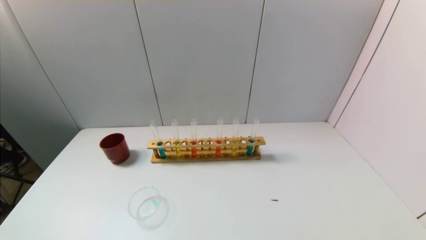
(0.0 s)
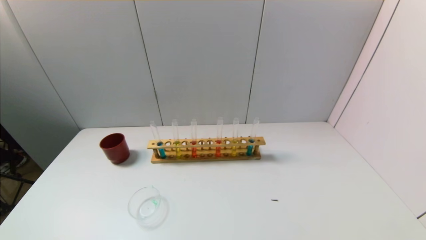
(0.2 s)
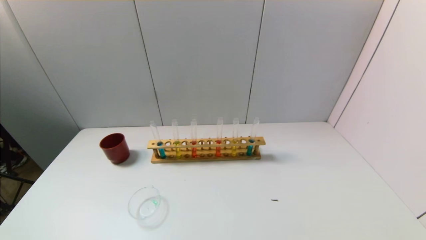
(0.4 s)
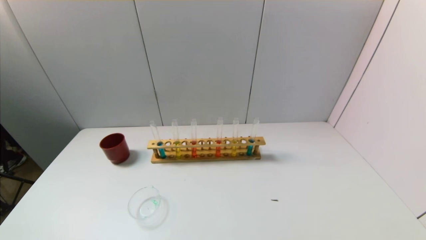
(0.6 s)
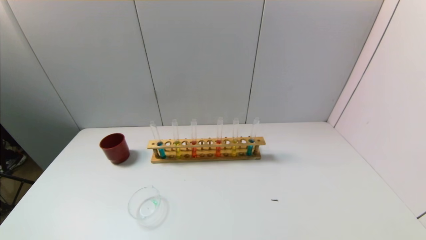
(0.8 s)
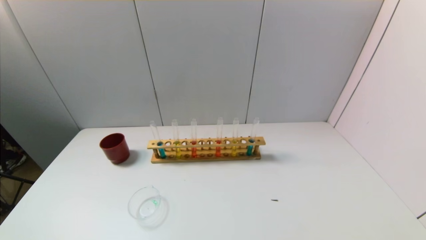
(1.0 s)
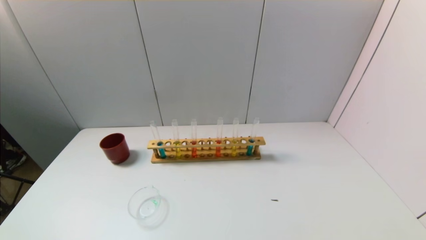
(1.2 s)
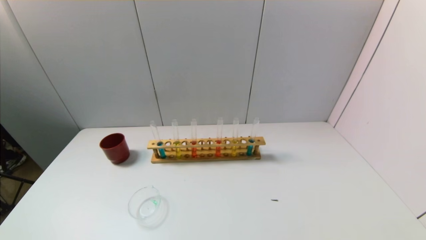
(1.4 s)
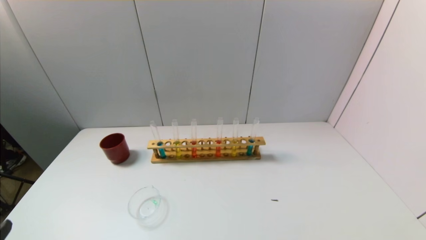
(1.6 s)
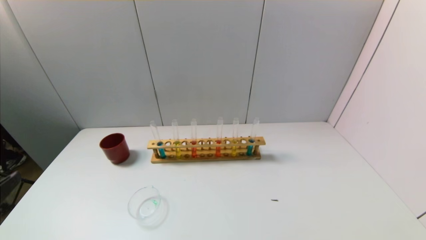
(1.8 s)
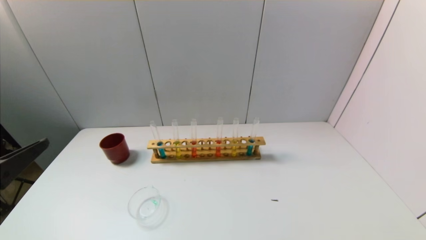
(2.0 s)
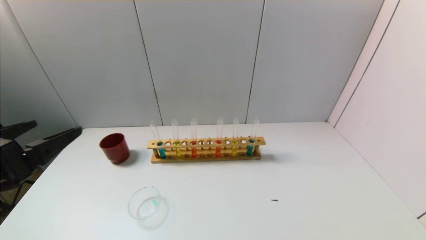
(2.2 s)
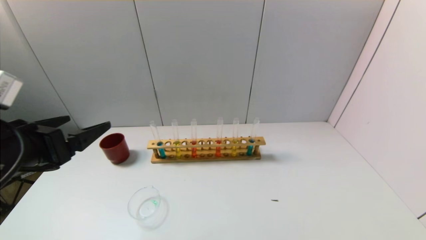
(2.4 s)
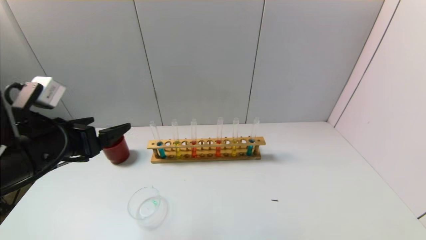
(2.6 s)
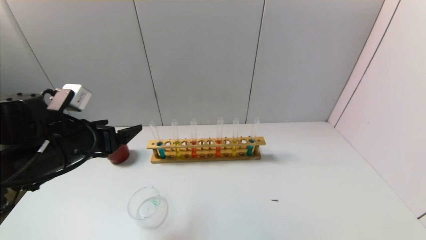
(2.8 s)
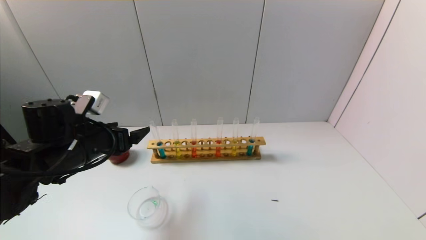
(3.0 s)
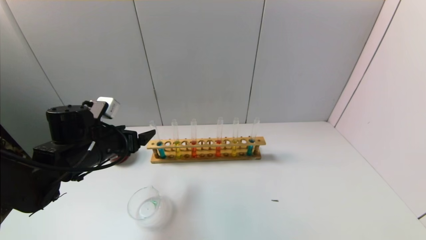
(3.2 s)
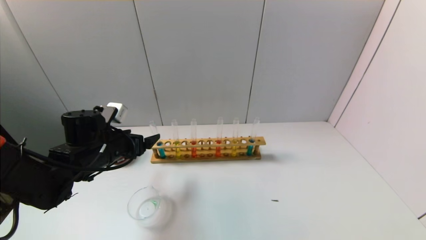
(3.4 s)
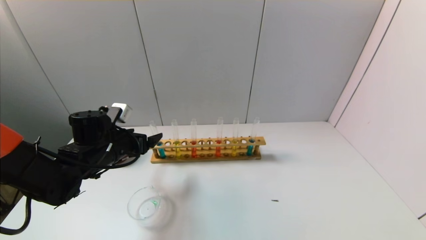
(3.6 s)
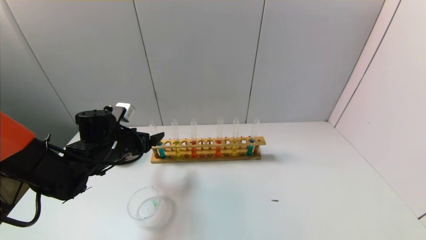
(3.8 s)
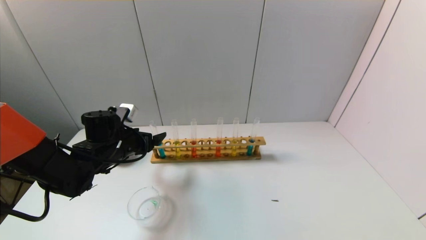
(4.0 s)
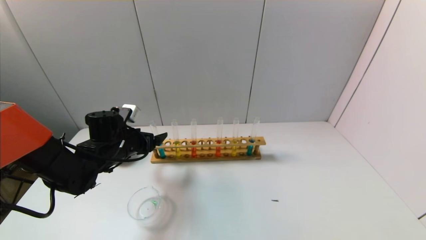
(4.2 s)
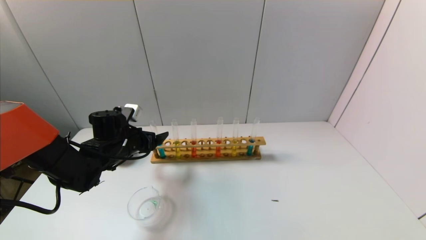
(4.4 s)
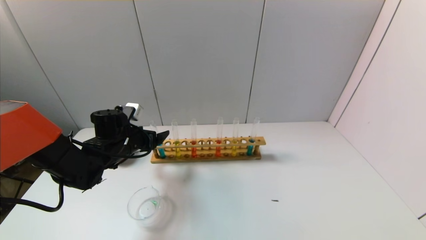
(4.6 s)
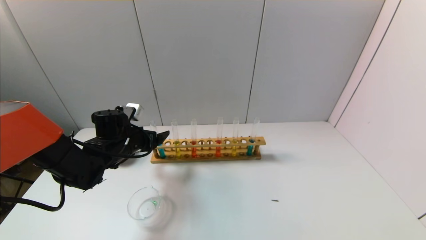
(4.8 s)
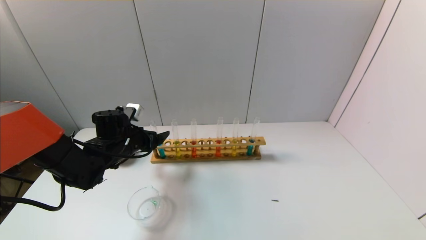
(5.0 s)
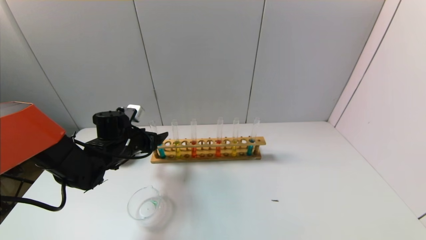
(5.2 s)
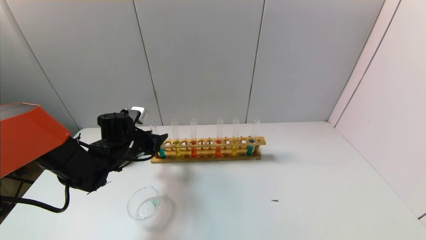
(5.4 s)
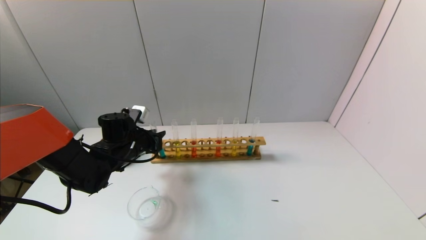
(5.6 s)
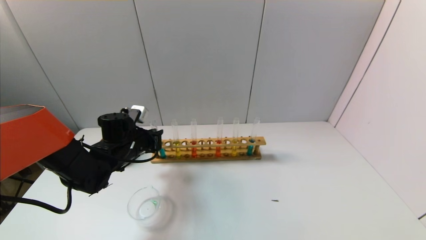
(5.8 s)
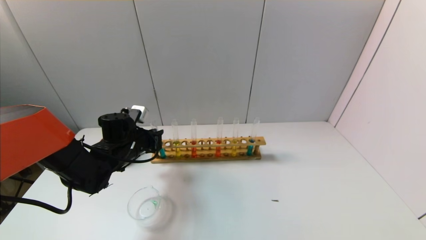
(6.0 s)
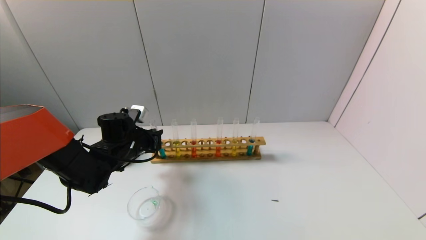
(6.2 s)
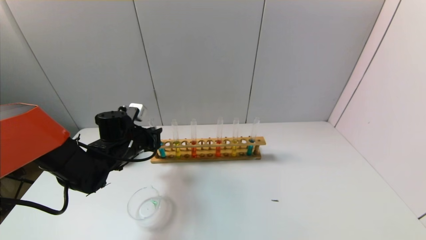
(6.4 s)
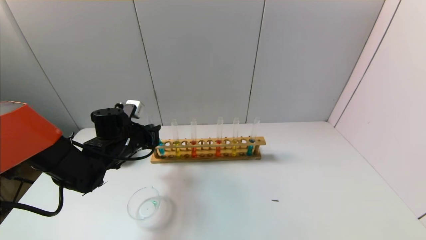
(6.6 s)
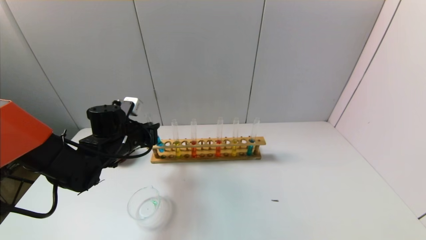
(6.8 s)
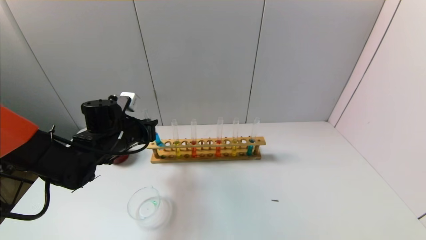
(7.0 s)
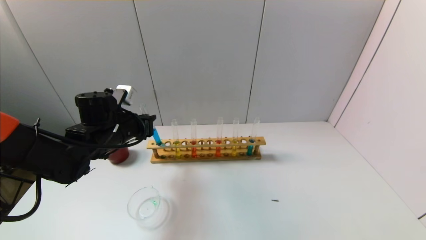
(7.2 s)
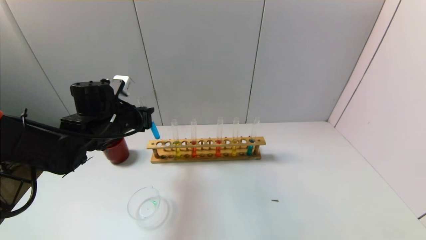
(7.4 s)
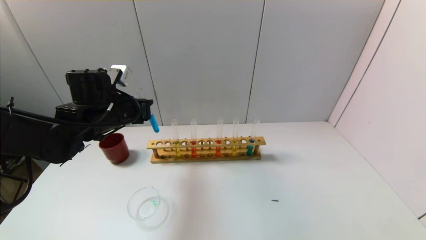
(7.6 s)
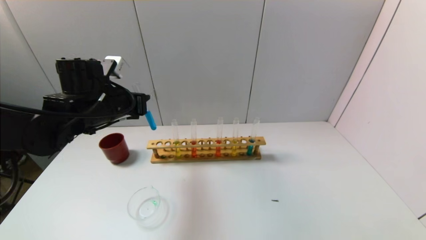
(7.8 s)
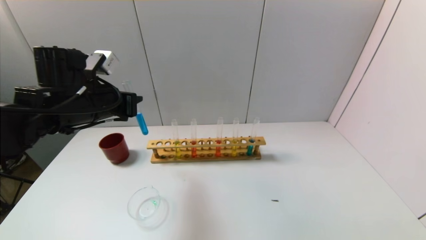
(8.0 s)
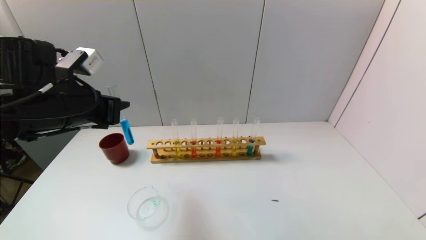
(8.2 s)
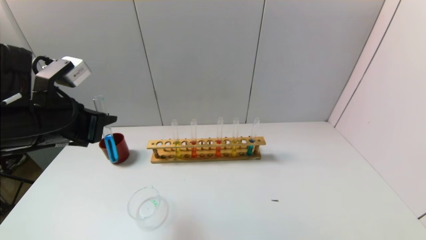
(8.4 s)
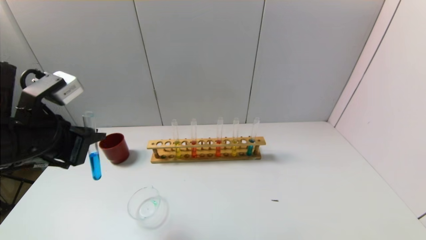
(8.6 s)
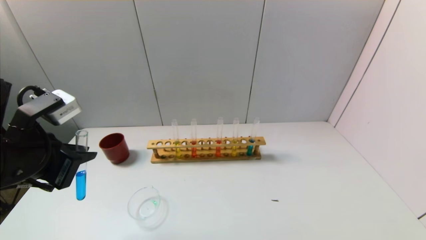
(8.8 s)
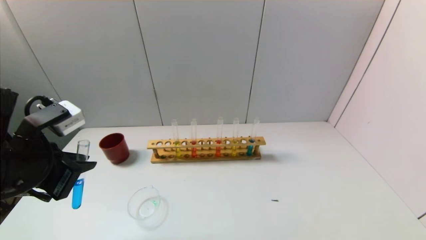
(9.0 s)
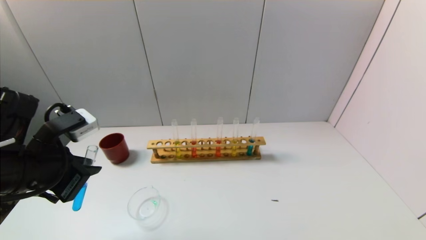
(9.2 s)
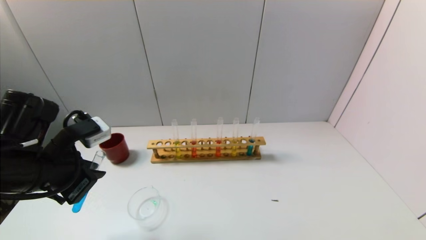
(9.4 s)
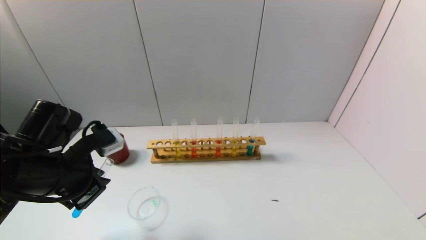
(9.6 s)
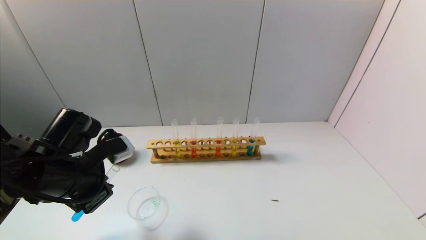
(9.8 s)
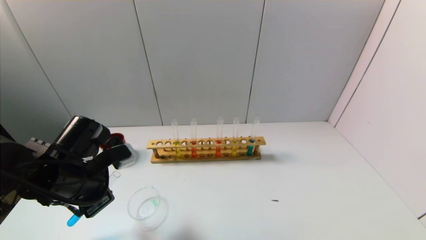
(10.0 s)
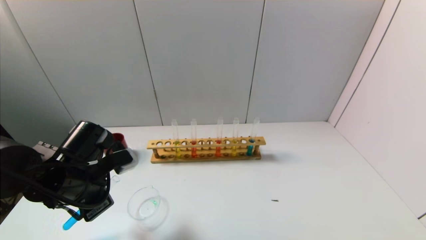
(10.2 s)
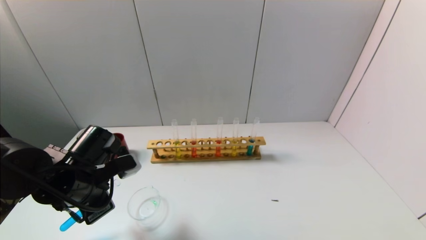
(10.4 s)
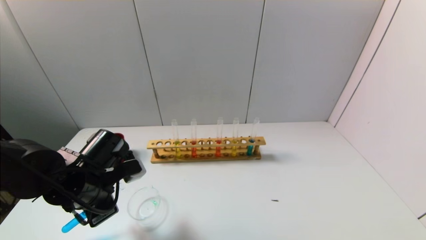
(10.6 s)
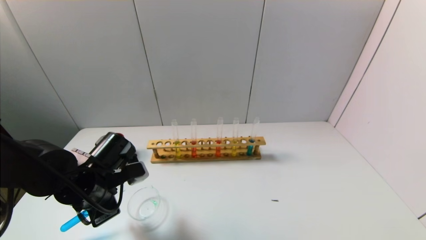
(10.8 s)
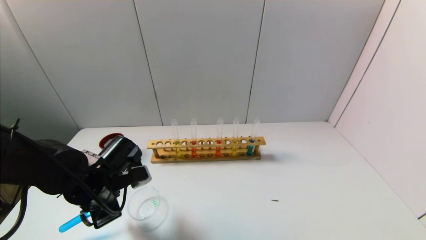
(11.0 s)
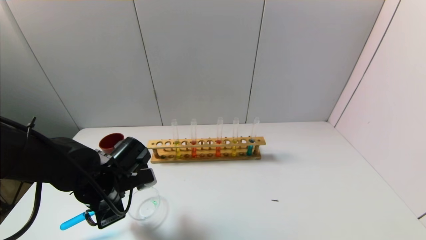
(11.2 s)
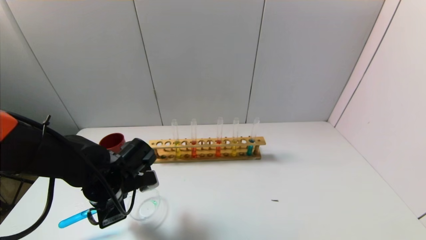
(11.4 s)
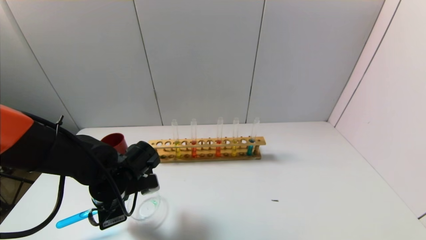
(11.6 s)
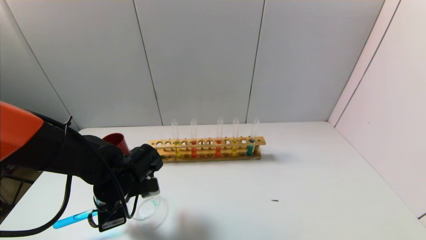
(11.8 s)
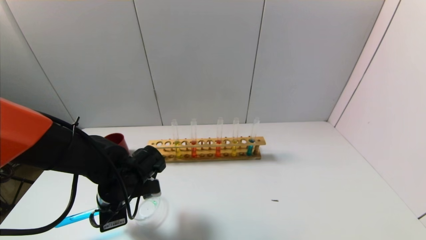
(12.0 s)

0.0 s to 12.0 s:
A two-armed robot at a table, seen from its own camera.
Task of the whole recording: pick up the test tube with yellow pigment and the test tube with blue pigment by grippers and pour them into the beaker.
Step, 0.0 to 5.6 s: Grasp the blue reagent with the left gripper.
1.6 to 3.0 s: The left gripper moves forward, about 25 cm.
3.0 to 4.4 s: The left gripper shifts approximately 10 cm forward and downward.
4.4 to 6.0 s: The left gripper closes up.
6.0 to 7.6 s: The left gripper moves upward, approximately 10 cm.
7.6 to 9.0 s: The left gripper goes roughly 15 cm backward.
9.0 to 10.4 s: The left gripper goes roughly 10 cm downward and forward.
10.4 to 12.0 s: The left gripper moves roughly 5 cm.

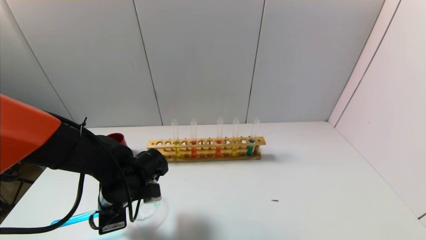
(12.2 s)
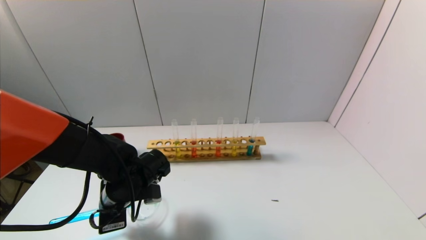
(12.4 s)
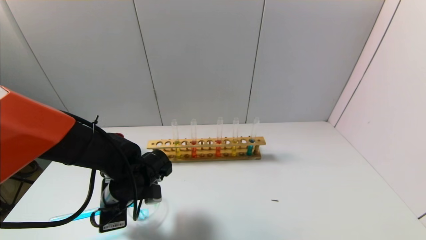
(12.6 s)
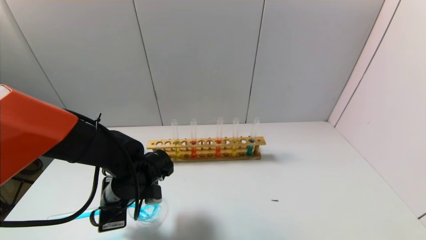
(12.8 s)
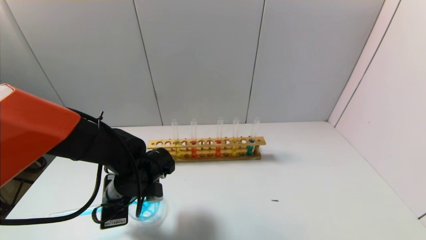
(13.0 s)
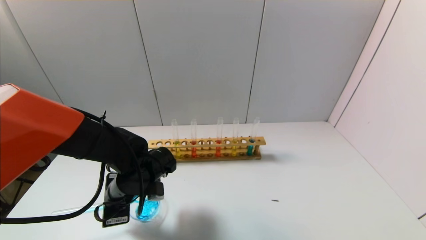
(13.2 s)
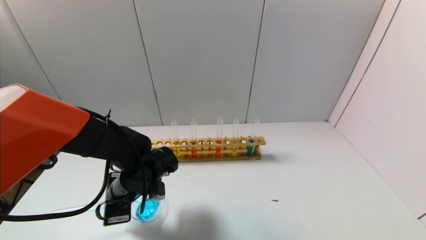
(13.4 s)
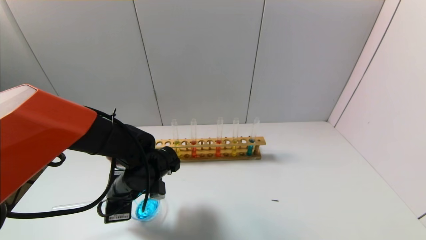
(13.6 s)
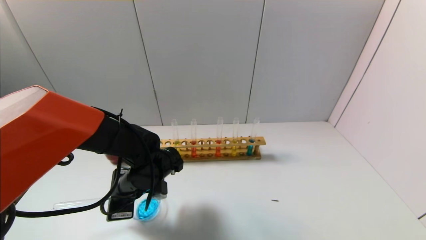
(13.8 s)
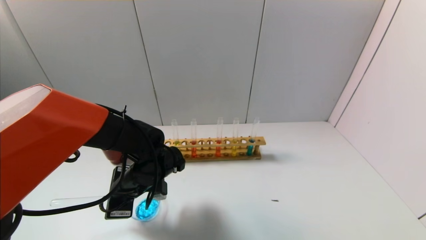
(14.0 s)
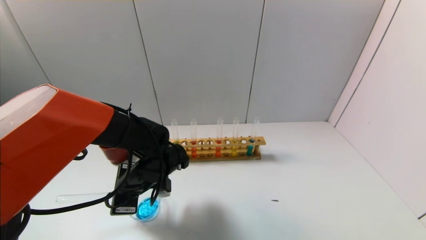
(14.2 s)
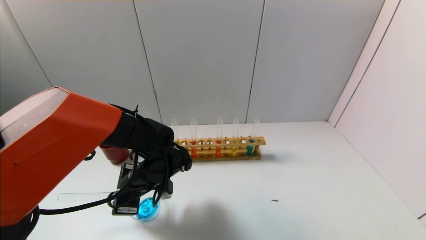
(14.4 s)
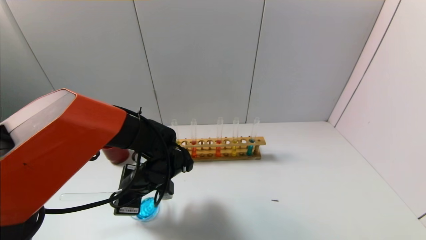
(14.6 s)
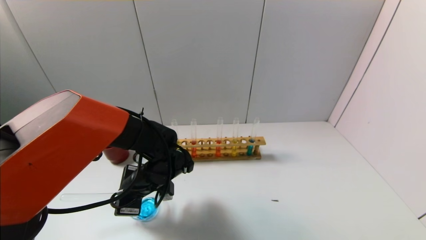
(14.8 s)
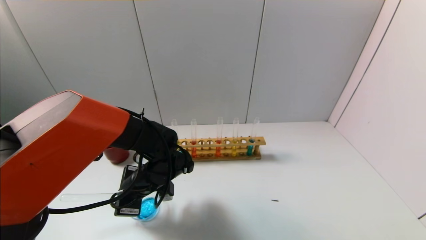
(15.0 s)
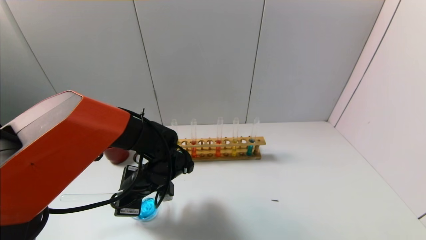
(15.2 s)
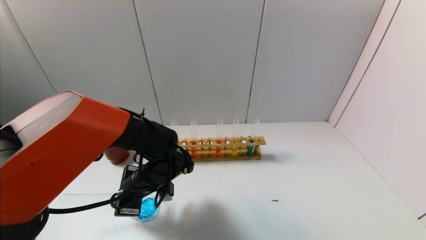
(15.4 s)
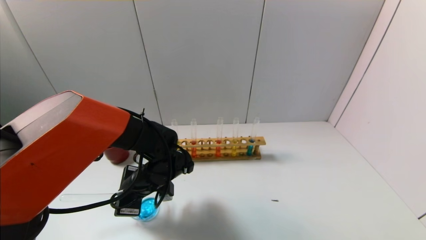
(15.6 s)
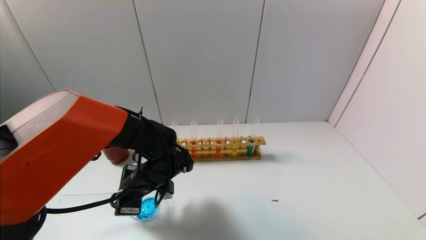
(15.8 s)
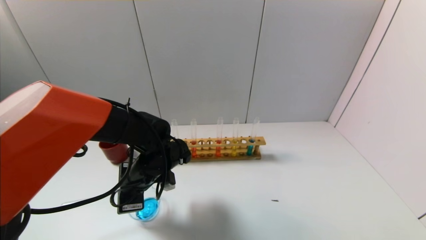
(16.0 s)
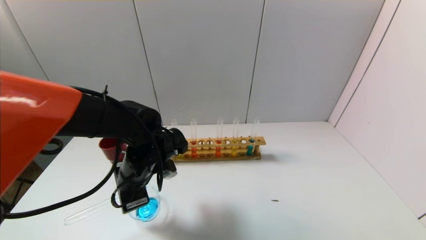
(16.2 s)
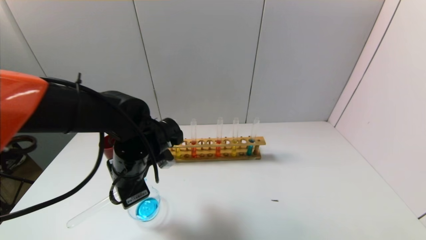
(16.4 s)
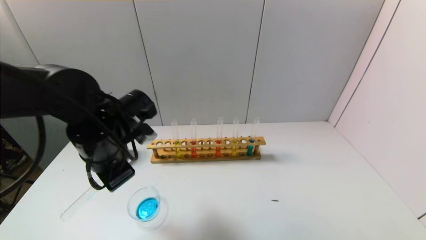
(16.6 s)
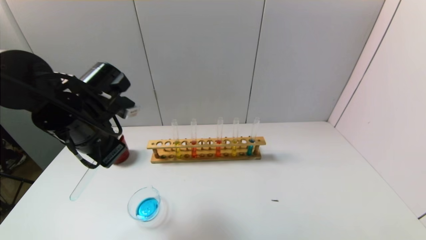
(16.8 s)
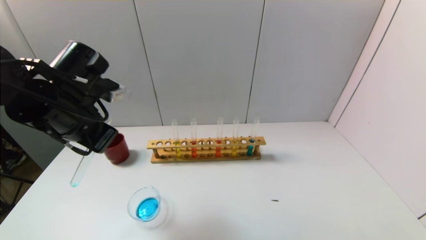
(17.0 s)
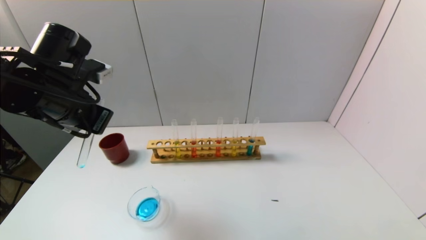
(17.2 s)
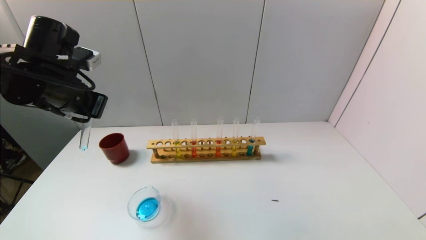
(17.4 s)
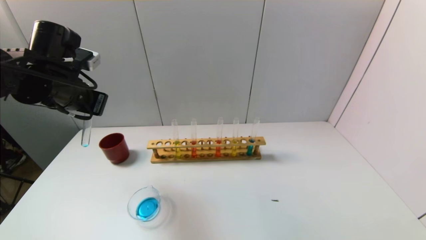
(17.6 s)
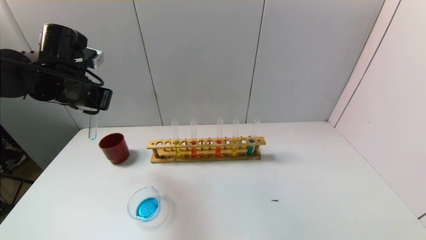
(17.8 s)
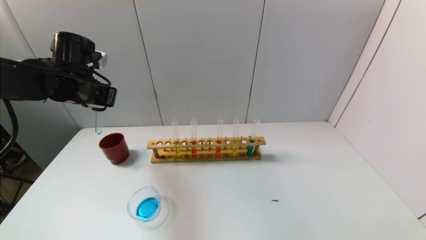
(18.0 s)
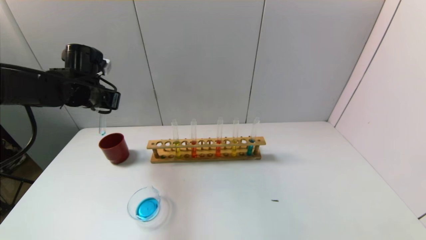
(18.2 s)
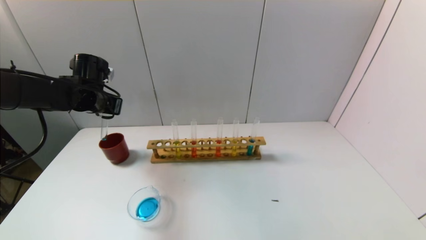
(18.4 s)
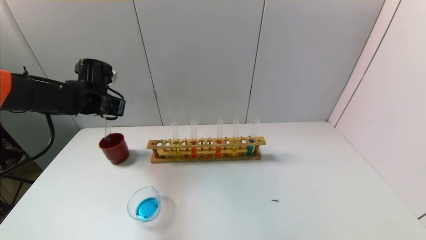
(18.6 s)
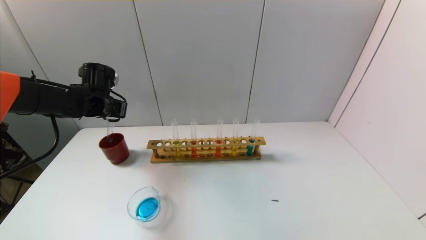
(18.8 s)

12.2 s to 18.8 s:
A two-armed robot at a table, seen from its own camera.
Task of the whole recording: pick up the test tube with yellow pigment and the test tube with blue pigment by grippers and pour them into the beaker.
Step, 12.2 to 14.6 s: Pour the blue reagent into the graduated cylinder with the left gripper.
12.2 to 15.4 s: The grippers move only a little.
15.4 to 17.2 s: The left gripper goes about 20 cm upward and to the left.
17.2 to 18.8 s: The left gripper shifts roughly 20 cm forward and downward.
